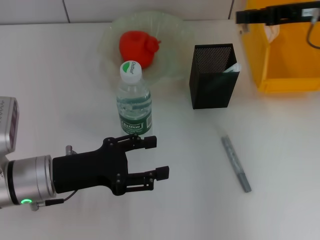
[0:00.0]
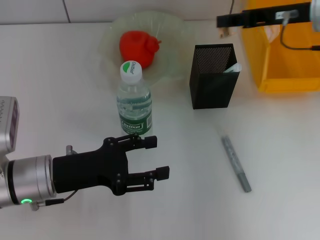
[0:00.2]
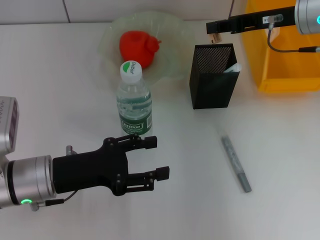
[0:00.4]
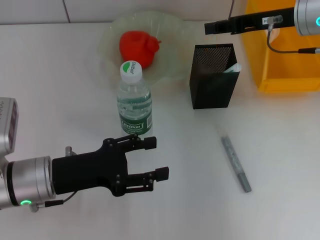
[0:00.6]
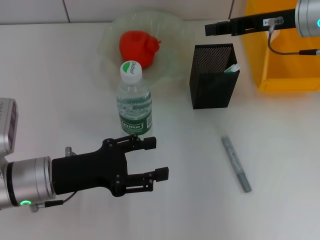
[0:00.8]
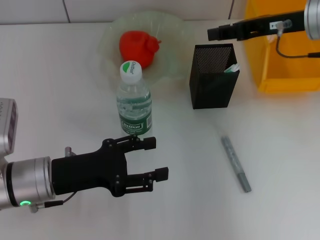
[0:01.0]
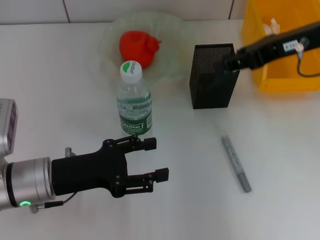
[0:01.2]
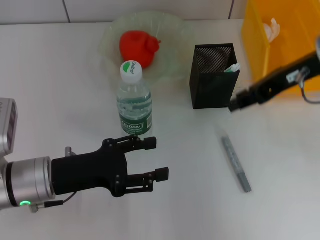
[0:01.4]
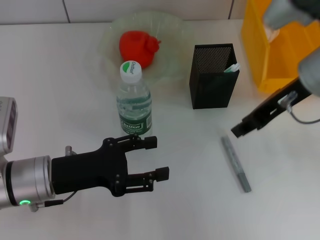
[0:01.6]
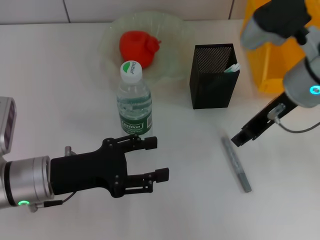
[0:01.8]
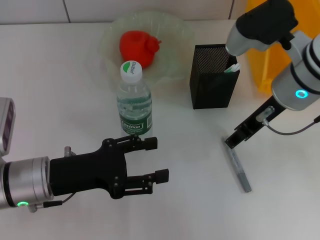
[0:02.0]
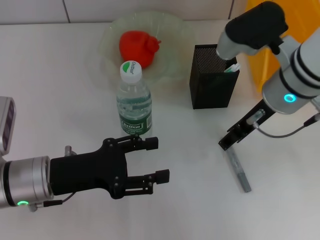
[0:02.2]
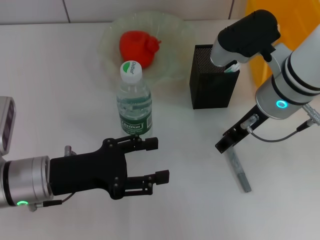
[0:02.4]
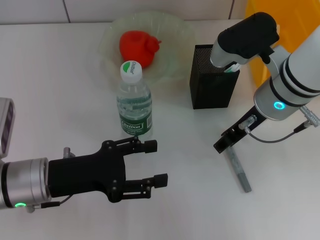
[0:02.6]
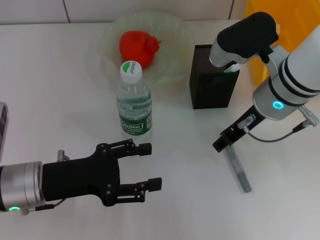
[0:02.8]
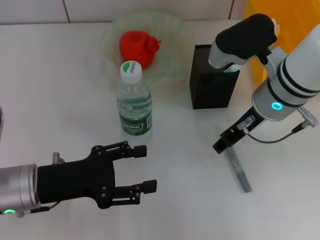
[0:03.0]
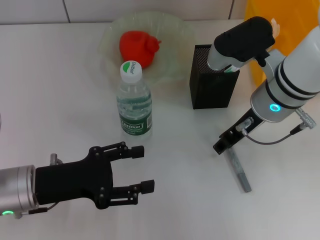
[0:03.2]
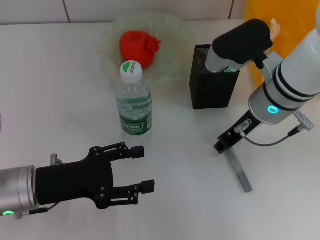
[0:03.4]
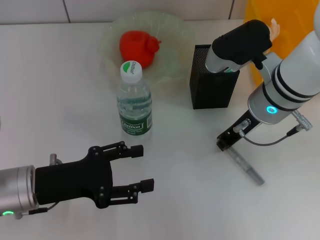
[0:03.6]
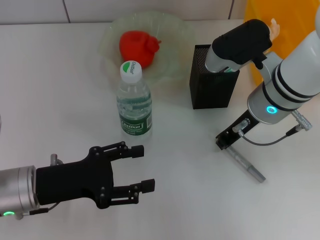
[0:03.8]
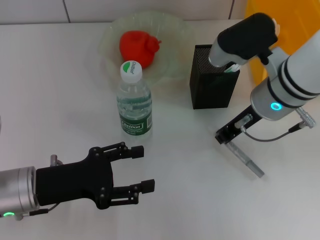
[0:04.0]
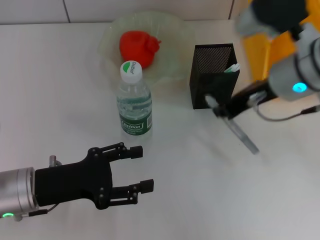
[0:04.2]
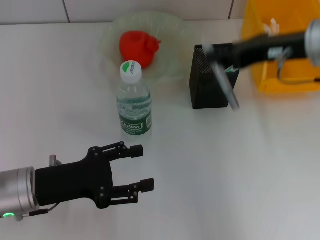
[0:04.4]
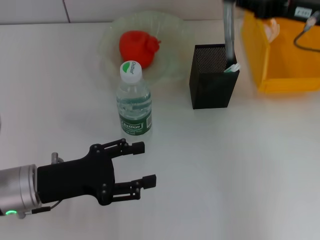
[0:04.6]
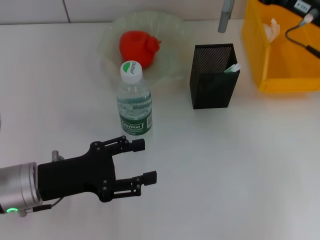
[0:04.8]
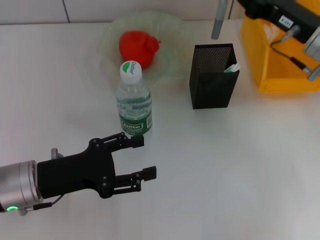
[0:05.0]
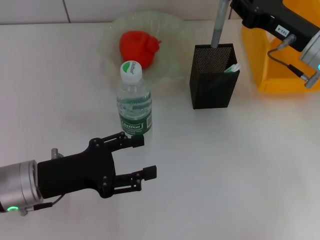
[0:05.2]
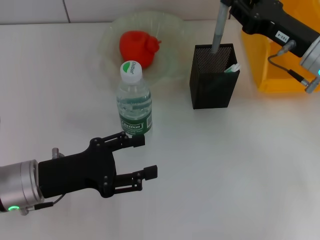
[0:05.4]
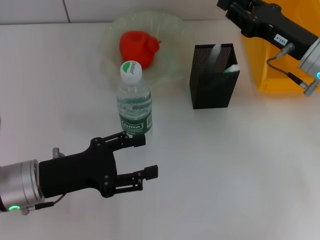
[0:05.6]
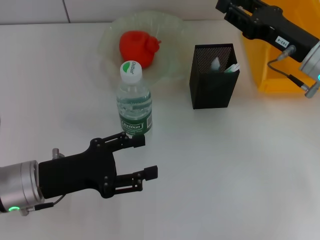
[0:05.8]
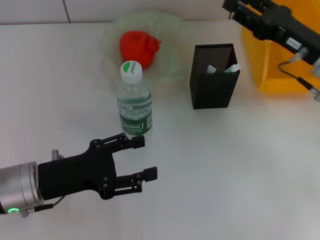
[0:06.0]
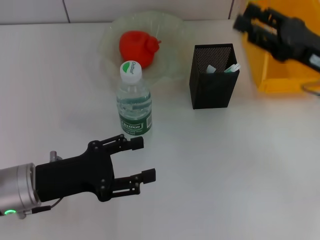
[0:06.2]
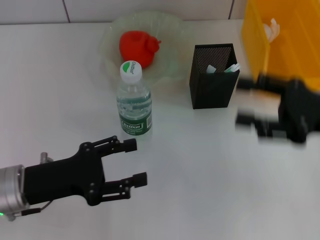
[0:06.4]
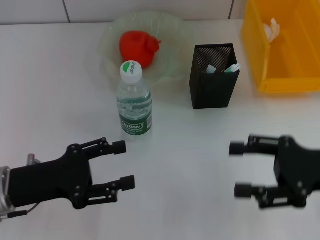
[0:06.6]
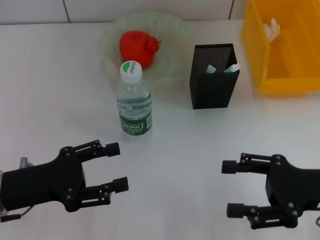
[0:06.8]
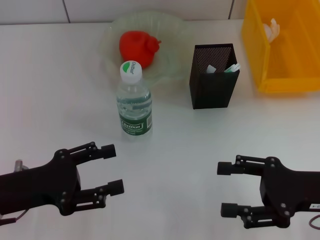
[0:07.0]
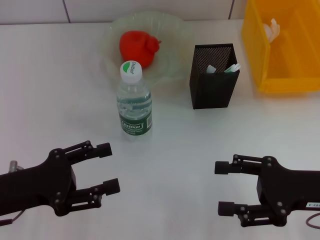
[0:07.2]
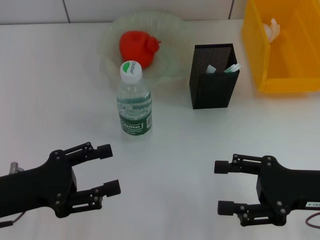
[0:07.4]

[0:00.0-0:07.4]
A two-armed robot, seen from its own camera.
Step, 0.0 to 0.8 s: Put the eraser into the pen holder with the right hand.
Step, 1.0 to 3.6 s: Grab the gray glue with the right hand.
Step, 3.8 to 6.0 s: Place the gray glue into the pen holder with the right hand.
0.0 to 1.4 s: The right gripper shifts by about 5 cm.
1.4 to 3.0 s: The right gripper goes roughly 10 cm to the left and downward.
3.0 to 4.4 s: The right gripper moves upward and to the right, some 10 cm, and closes up.
4.4 to 6.0 s: The right gripper goes about 10 cm downward, and opens its fingers.
6.0 to 7.4 s: The left gripper changes place by approximately 5 cm. The right gripper is displaced backward by approximately 15 cm, and opens up.

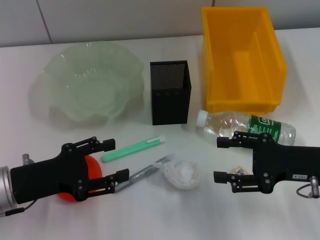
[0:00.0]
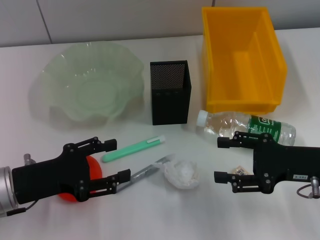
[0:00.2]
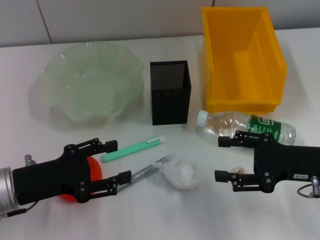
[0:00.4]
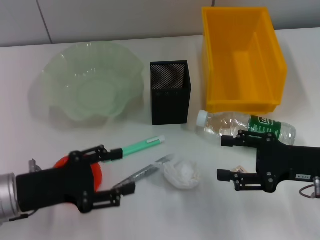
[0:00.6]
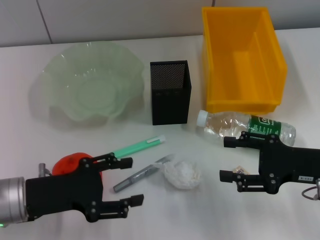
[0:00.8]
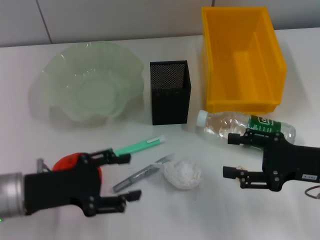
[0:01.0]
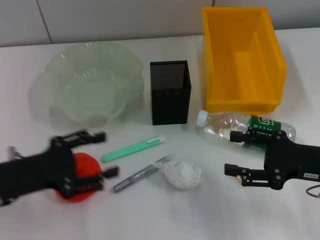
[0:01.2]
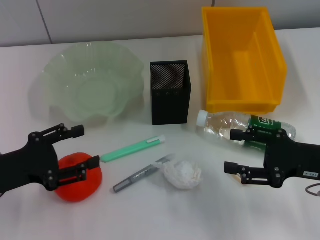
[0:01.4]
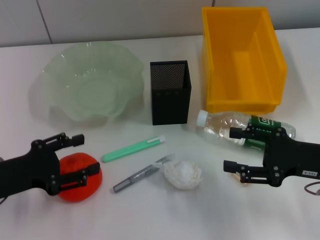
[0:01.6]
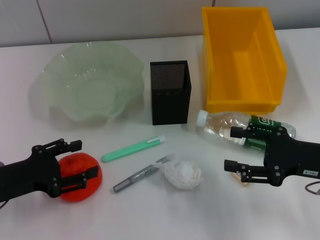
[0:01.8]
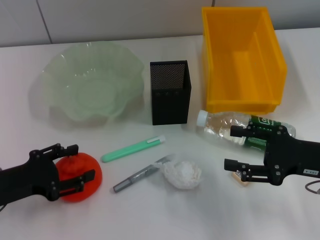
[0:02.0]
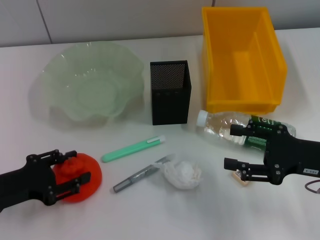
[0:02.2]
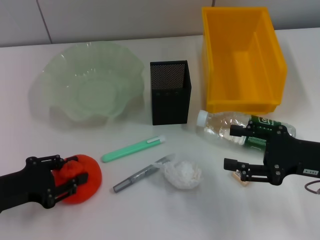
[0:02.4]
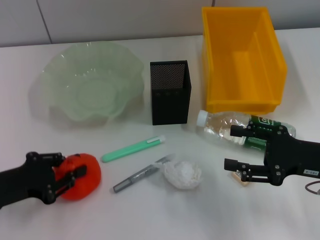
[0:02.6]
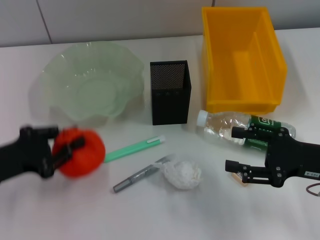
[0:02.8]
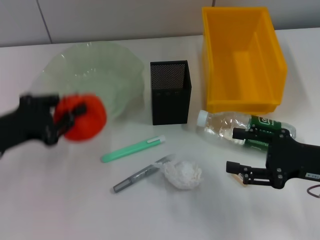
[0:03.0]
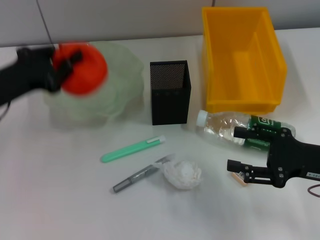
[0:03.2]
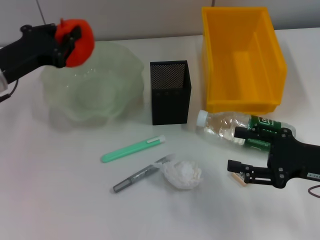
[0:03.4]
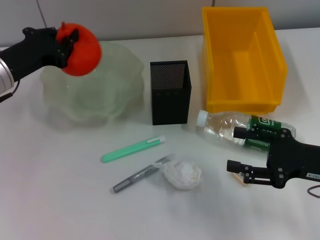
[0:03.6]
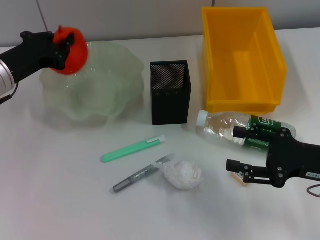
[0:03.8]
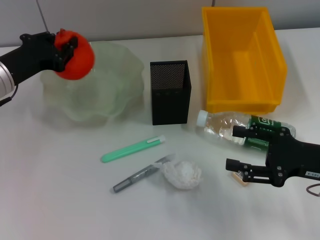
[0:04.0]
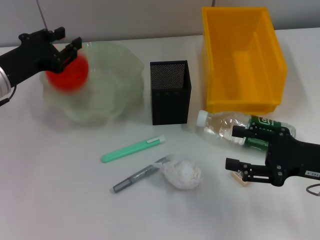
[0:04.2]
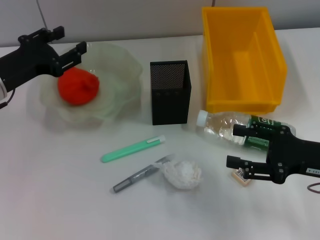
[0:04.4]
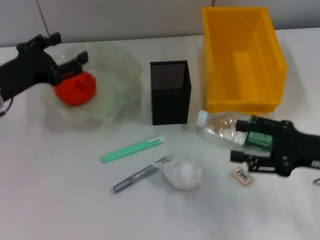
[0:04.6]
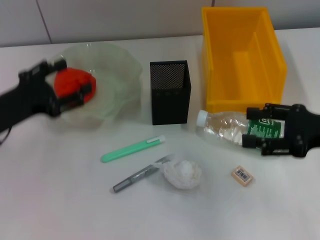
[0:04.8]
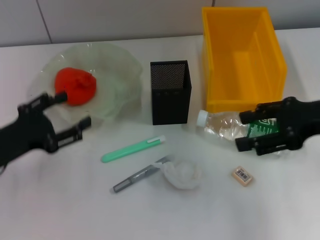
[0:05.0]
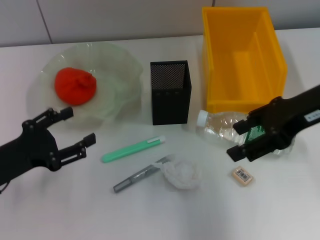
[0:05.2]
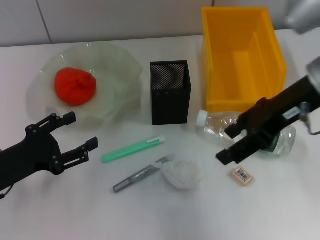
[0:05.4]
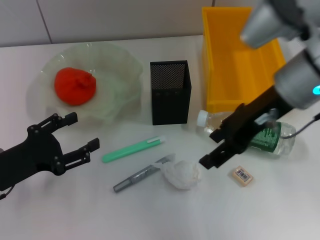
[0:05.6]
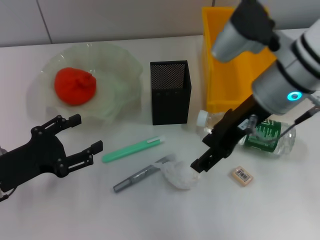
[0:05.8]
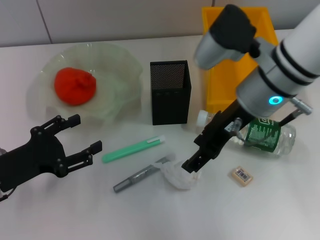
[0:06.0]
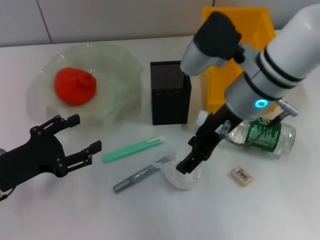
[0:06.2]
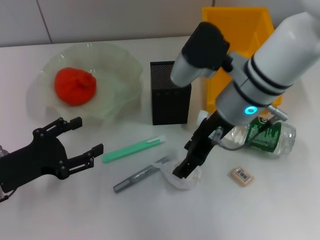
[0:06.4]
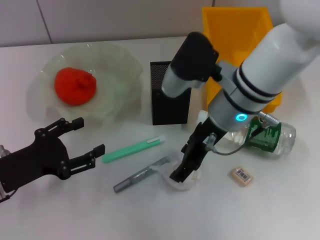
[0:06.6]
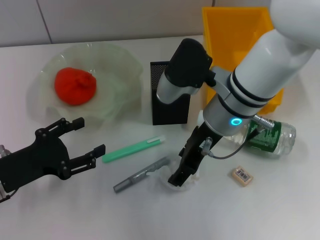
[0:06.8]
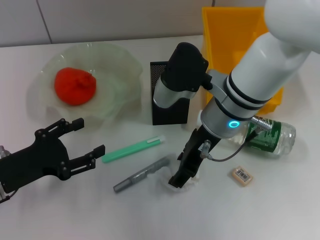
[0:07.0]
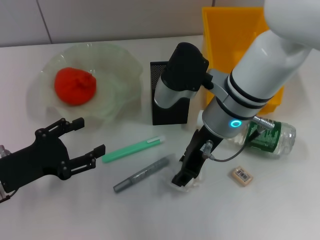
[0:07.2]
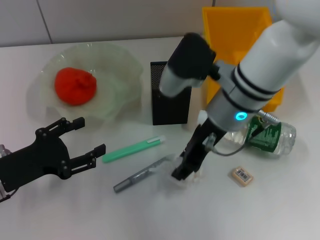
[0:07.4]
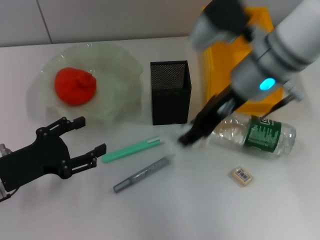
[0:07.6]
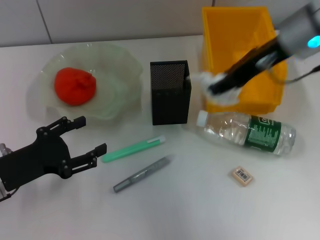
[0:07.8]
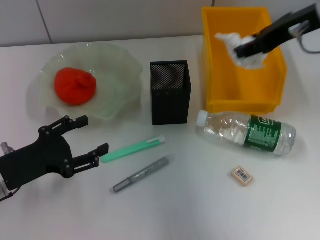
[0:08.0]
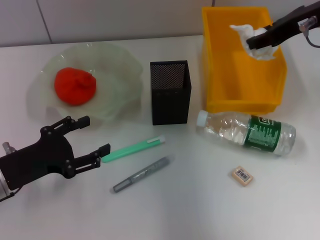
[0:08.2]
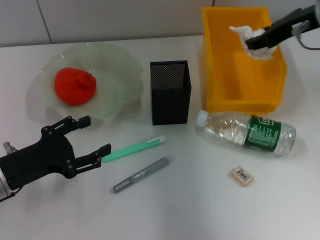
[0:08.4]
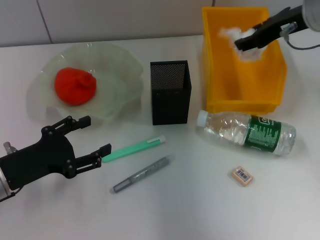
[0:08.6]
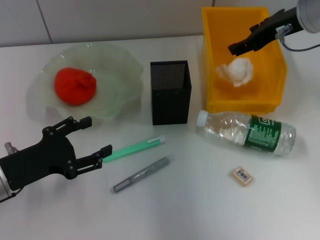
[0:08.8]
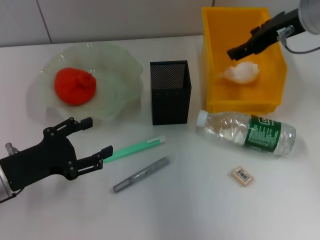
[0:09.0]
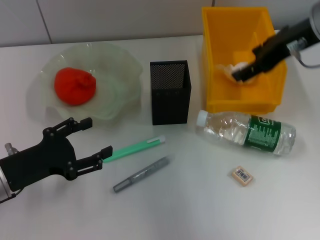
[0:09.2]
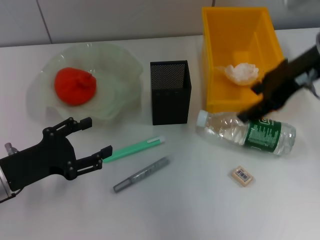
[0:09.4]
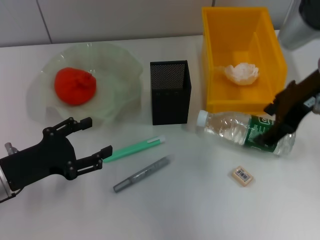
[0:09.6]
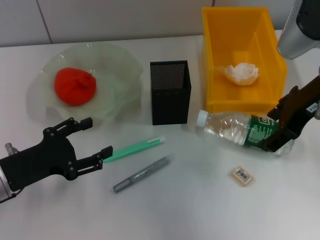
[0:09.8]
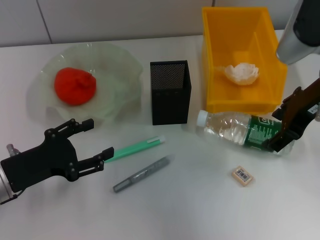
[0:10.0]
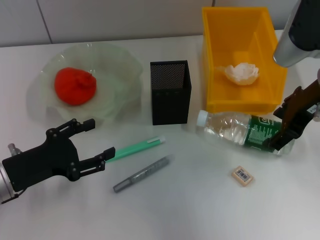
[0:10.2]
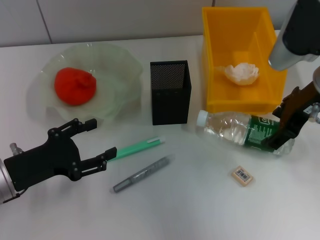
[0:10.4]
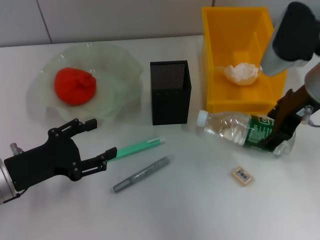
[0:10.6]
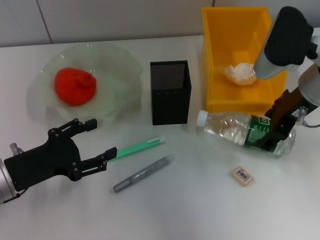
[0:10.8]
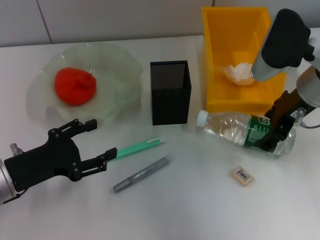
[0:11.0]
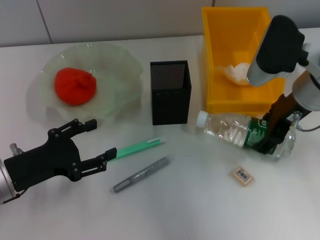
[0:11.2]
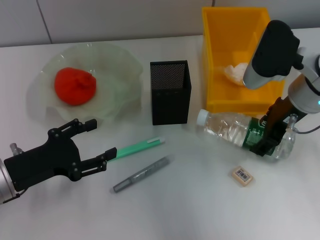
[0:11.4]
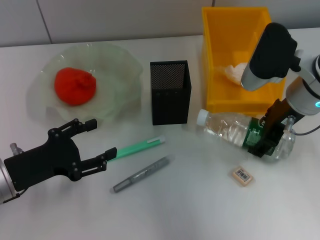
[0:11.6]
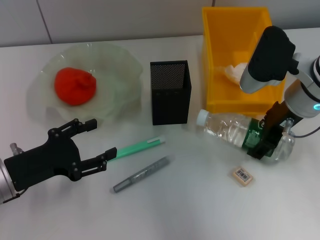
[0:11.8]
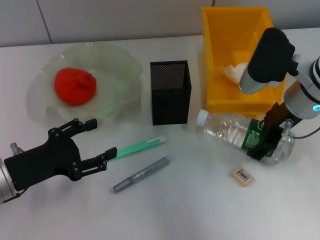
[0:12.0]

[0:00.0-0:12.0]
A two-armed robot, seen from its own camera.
Step, 0.0 to 2.4 s: Grab the orange with the left hand.
Step, 2.6 to 4.4 s: Place the orange into the fruit bowl with the left hand.
Step, 4.6 to 7.0 s: Grab the paper ball with the right hand.
Step, 7.2 to 9.2 s: Place the paper ball into the trash can with the right hand.
0.0 to 1.6 s: The grippers move only a little.
1.6 to 3.0 s: The left gripper moves approximately 5 cm, and closes up.
3.0 to 4.4 s: The left gripper goes some 5 cm forward, and opens up.
4.4 to 6.0 s: The right gripper goes some 20 cm to the left, upward and forward. Meanwhile the left gripper moves backward and downward, approximately 15 cm.
6.0 to 7.6 s: The right gripper closes.
7.6 to 9.0 s: The right gripper shifts approximately 10 cm to the right, and opens up.
9.0 to 10.4 s: The right gripper is displaced backward by roughly 5 cm.
10.4 to 12.0 s: The right gripper travels downward by approximately 5 cm.

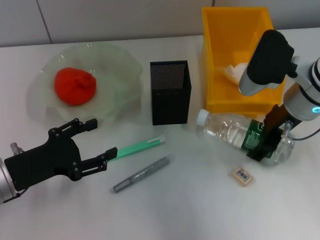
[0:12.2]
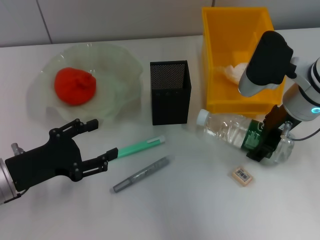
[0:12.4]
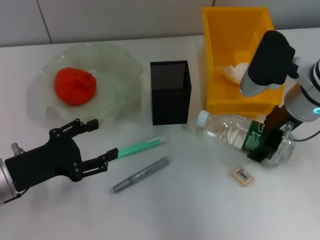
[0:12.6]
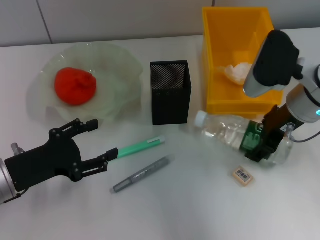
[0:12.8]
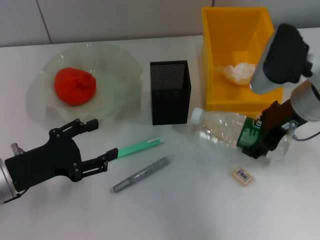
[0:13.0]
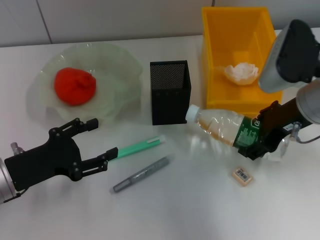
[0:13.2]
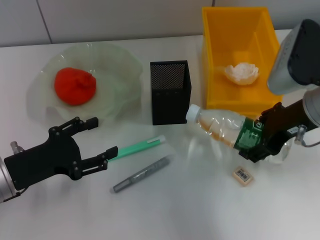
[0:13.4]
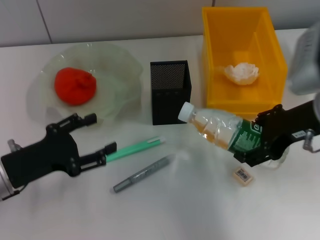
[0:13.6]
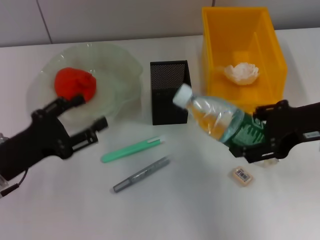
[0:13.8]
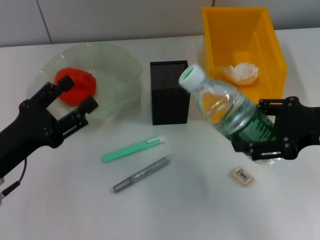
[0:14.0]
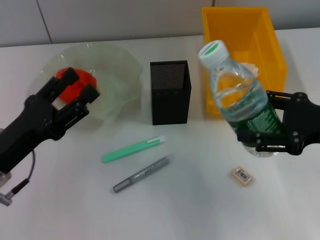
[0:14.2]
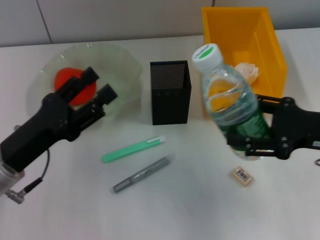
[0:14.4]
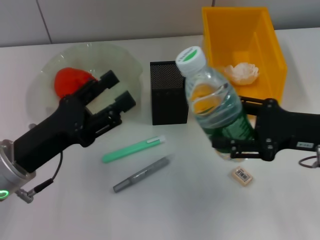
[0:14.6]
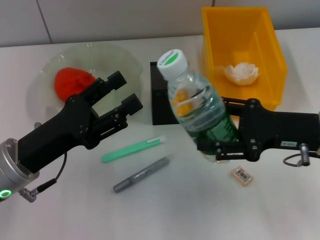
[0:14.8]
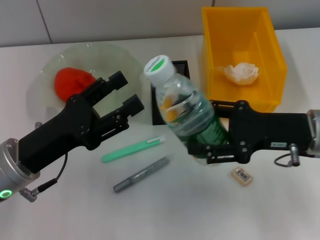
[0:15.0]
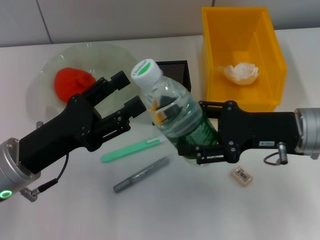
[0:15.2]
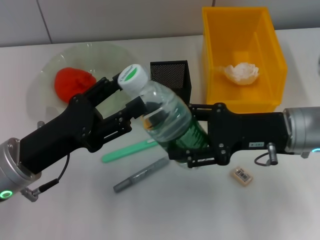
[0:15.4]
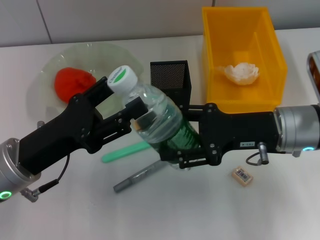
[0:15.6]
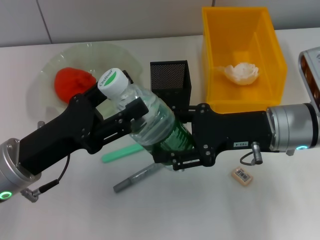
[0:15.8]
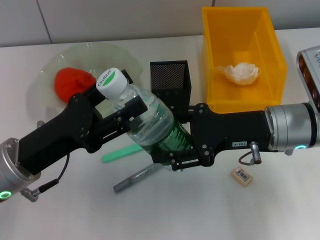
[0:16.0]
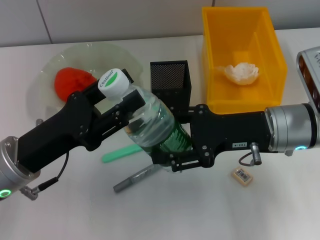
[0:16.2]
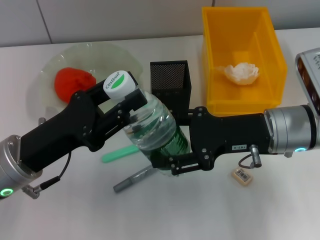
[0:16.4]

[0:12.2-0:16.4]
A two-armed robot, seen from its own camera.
12.2 to 13.6 s: The right gripper is displaced backward by roughly 5 cm.
13.6 to 15.0 s: The right gripper moves downward, about 5 cm. Meanwhile the left gripper moves roughly 5 cm.
15.0 to 16.4 s: The left gripper closes, while the right gripper ends up roughly 5 cm from where it was.
